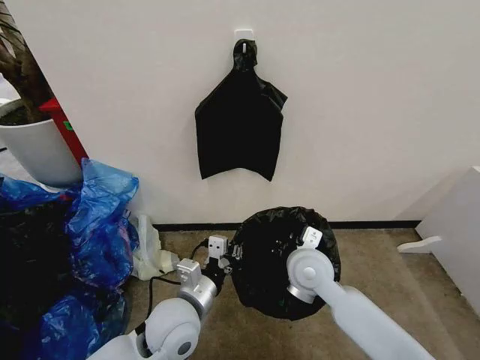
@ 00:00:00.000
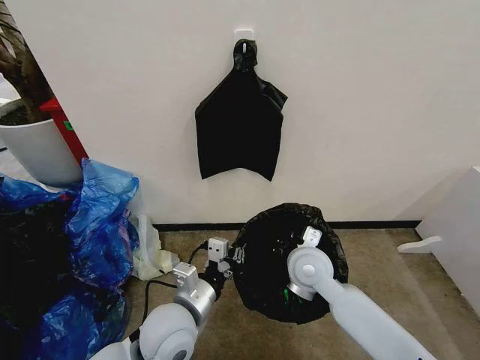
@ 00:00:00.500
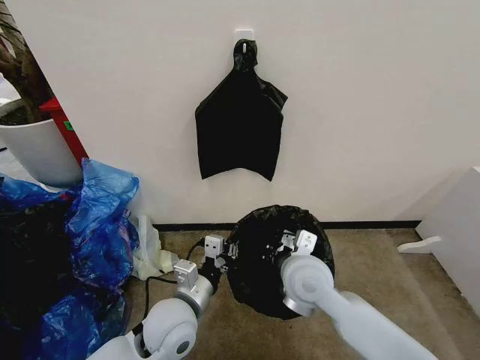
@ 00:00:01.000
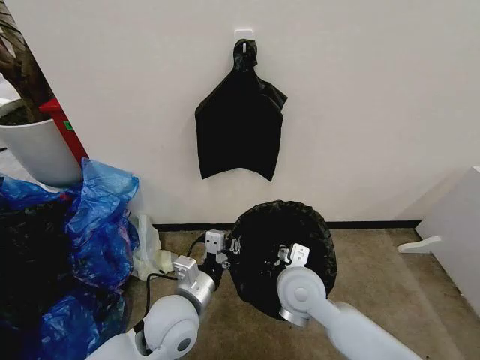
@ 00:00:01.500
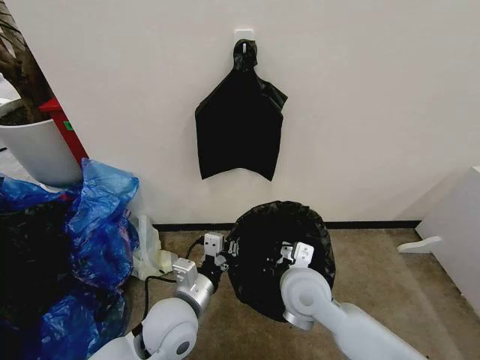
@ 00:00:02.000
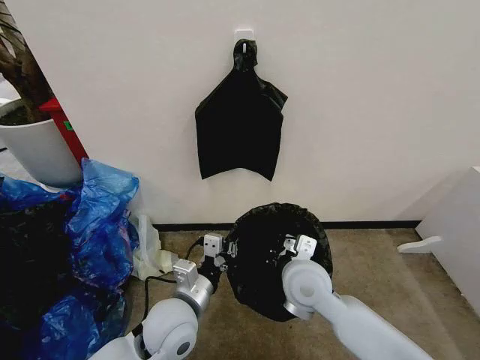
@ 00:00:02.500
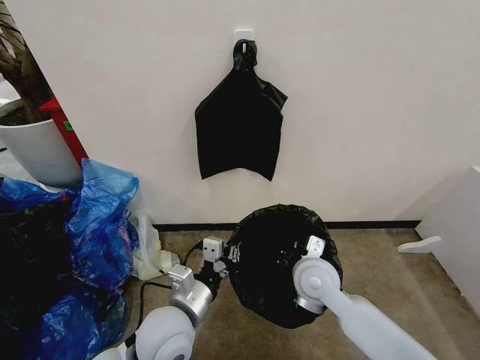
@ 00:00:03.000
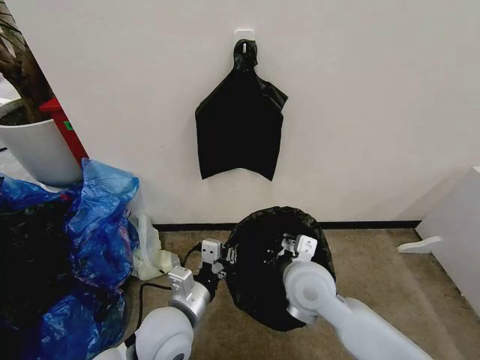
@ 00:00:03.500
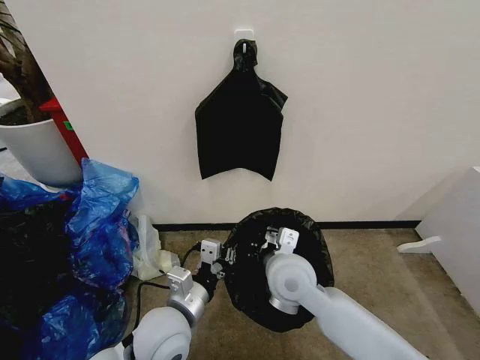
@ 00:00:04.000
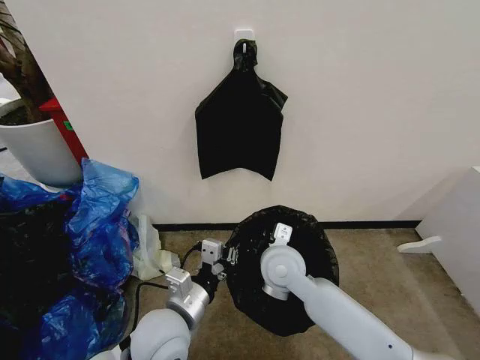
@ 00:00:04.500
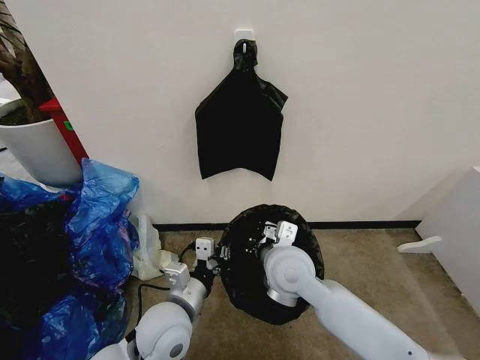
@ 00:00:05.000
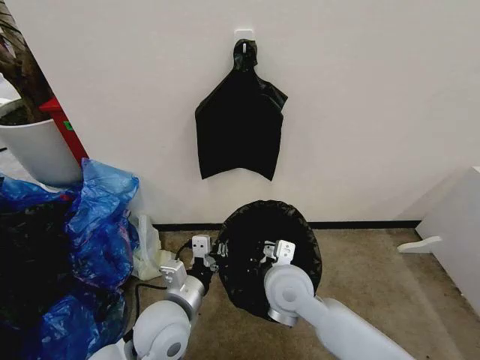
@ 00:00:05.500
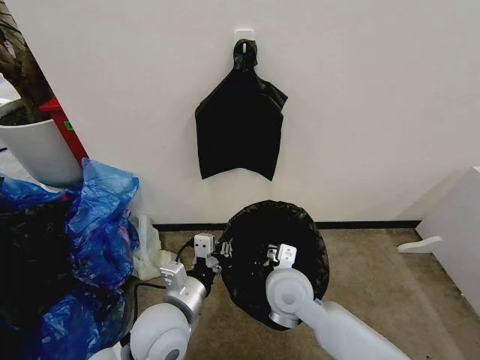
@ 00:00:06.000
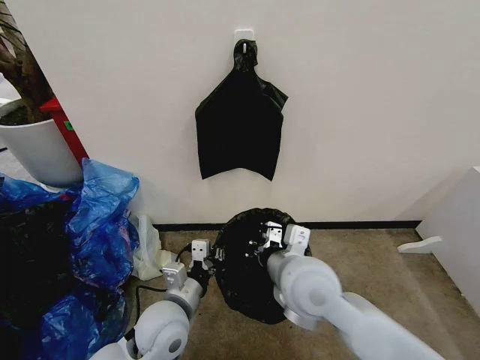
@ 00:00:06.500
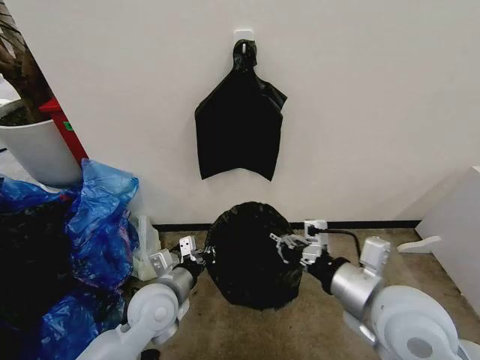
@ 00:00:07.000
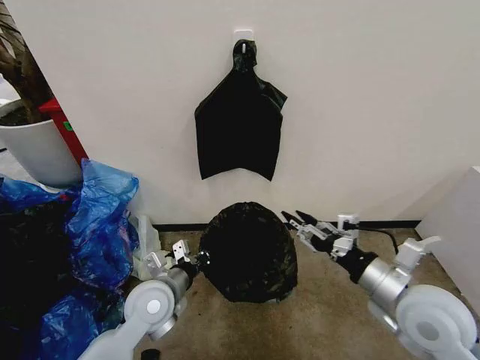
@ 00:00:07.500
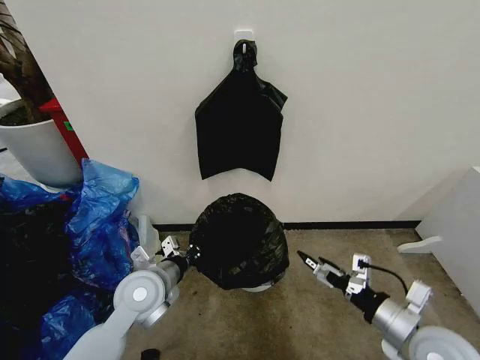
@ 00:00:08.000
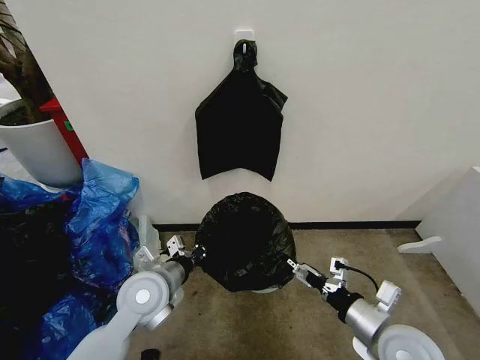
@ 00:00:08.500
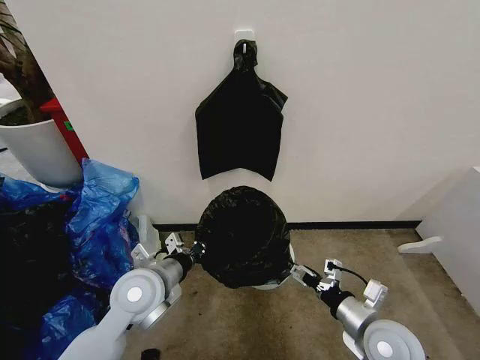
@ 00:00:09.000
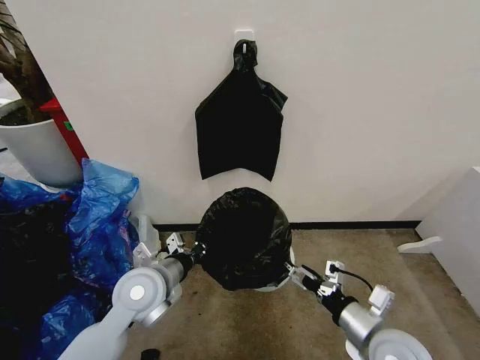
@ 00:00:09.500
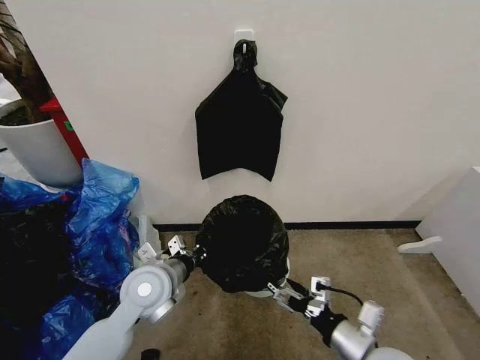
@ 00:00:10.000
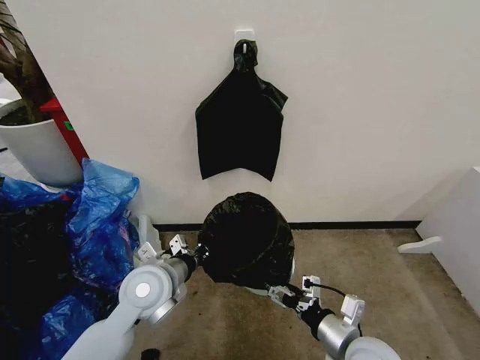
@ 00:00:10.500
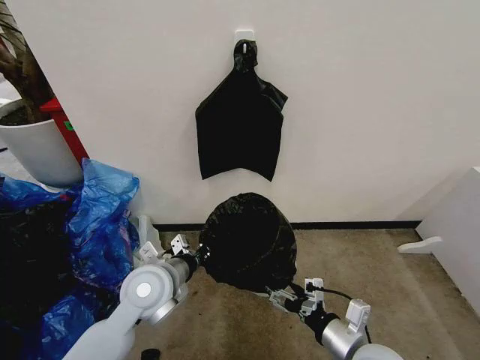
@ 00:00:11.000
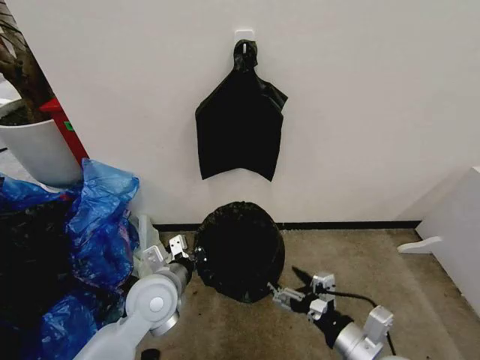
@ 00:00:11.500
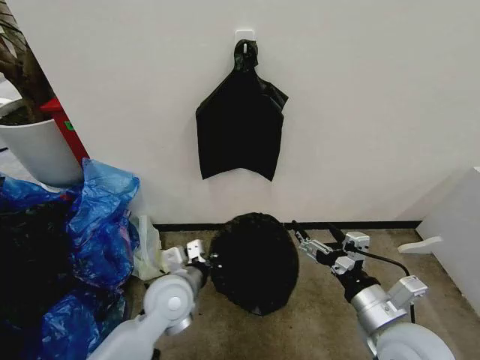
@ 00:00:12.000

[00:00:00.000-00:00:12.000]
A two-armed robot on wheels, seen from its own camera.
Task of the whole recording: Place the garbage bag over the trash bin.
00:00:00.000 to 00:00:04.000: There are only small adjustments of the grippers.
00:00:04.000 to 00:00:06.000: The grippers make only small movements.
00:00:06.000 to 00:00:08.000: The right gripper is displaced to the right and backward by about 25 cm, and opens. Meanwhile the left gripper heads forward and to the left, covering about 10 cm.
00:00:08.000 to 00:00:10.000: The right gripper goes approximately 10 cm to the left.
00:00:10.000 to 00:00:12.000: The right gripper shifts roughly 5 cm upward.

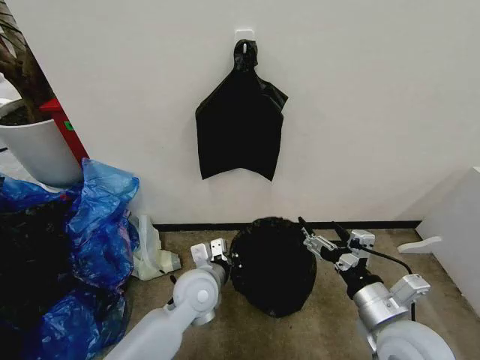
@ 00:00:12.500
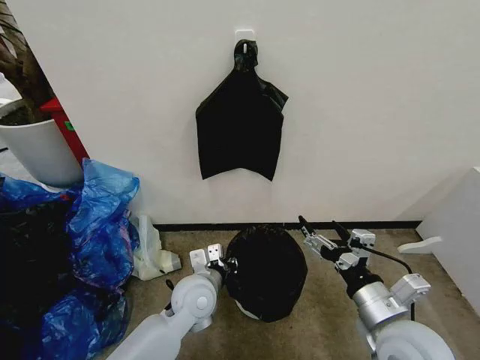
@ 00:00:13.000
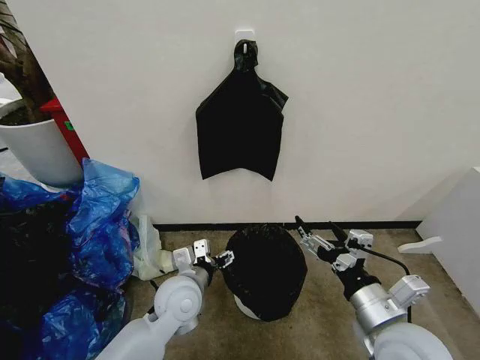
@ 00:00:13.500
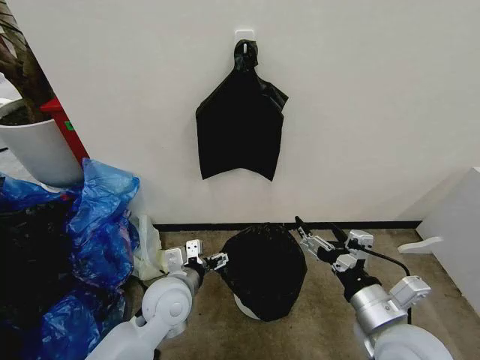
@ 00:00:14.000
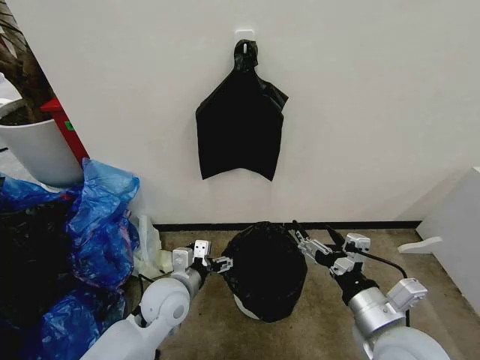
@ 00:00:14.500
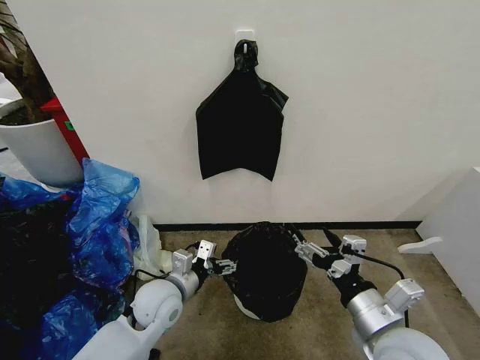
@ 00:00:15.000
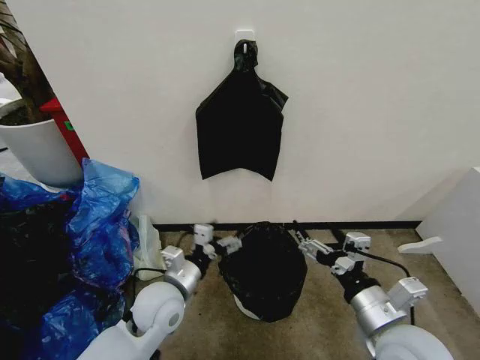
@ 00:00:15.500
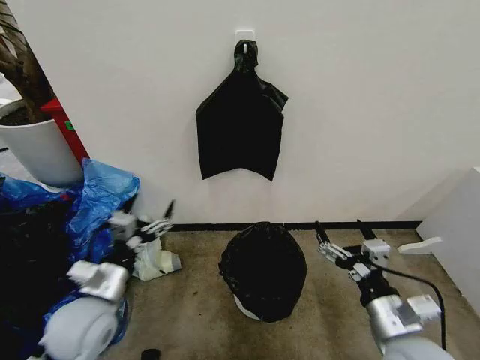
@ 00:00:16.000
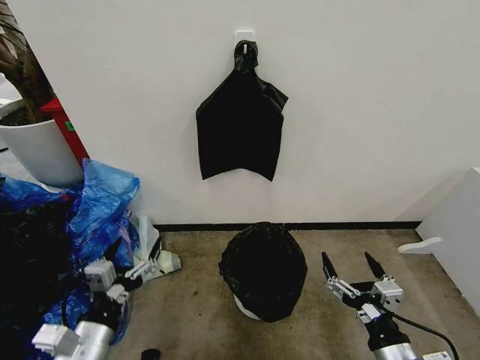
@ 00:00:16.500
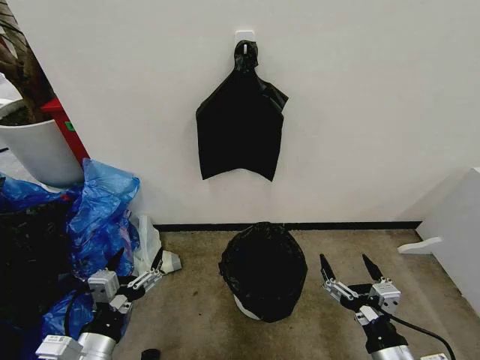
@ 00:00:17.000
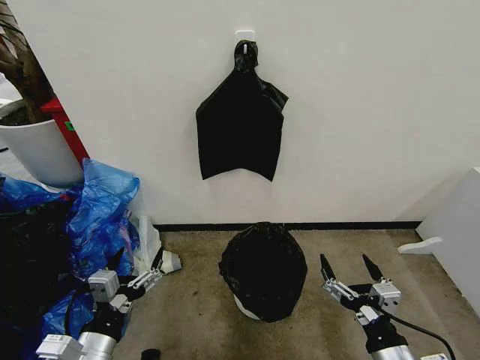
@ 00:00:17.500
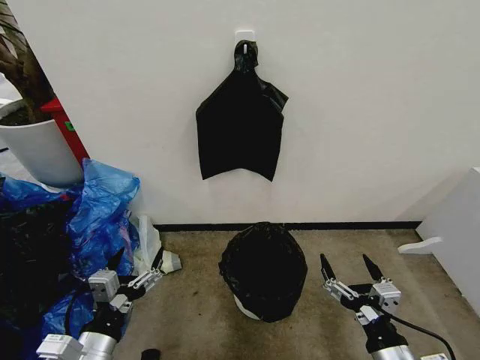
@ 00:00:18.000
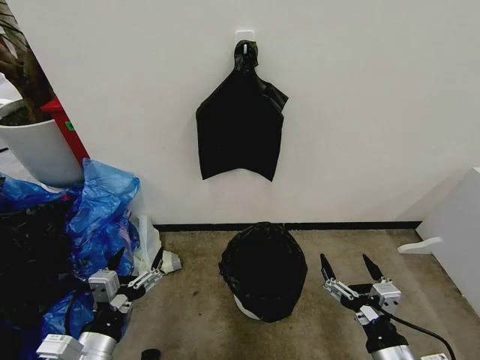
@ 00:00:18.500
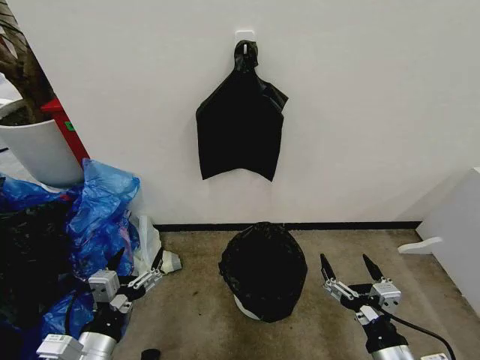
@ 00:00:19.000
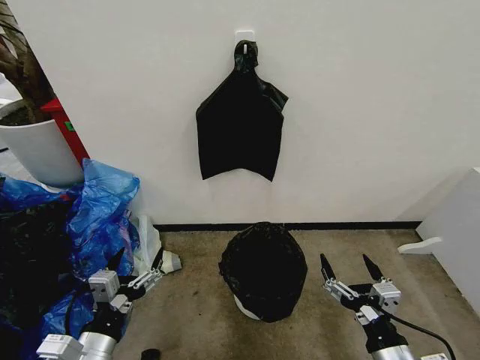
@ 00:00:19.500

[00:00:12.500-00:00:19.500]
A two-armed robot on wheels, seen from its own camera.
Task of the whole recording: Place the garbage bag over the trash bin.
00:00:12.500 to 00:00:14.500: The left gripper travels to the left by some 5 cm, and opens its fingers.
00:00:14.500 to 00:00:16.000: The left gripper goes some 15 cm to the left, backward and upward.
00:00:16.000 to 00:00:17.500: The left gripper travels backward by some 10 cm, while the right gripper shifts some 5 cm backward.
00:00:17.500 to 00:00:19.500: Both grippers stay put.
